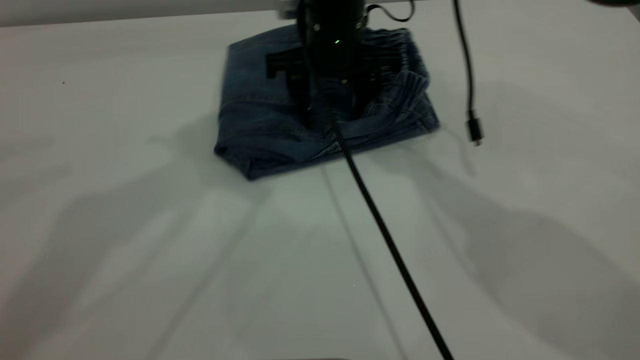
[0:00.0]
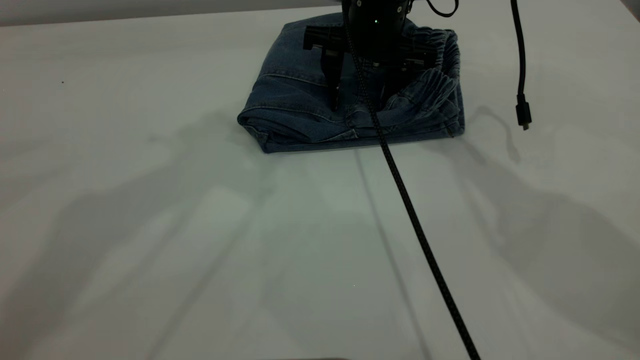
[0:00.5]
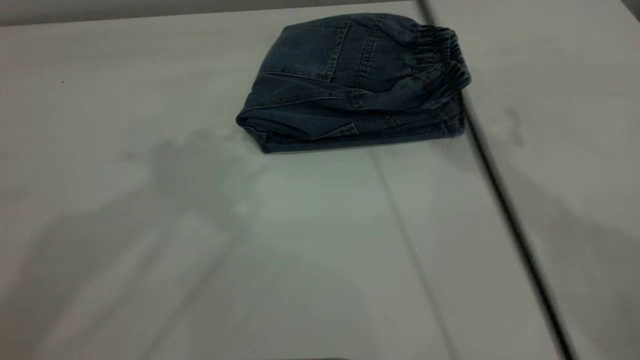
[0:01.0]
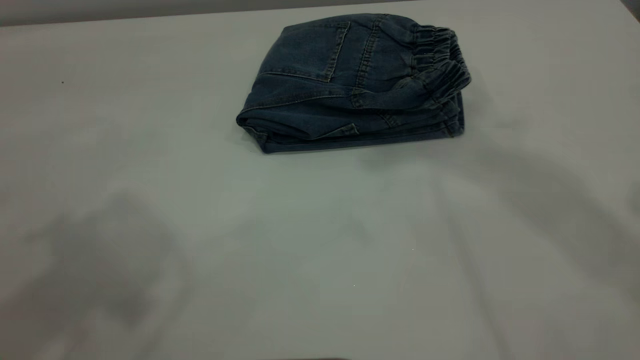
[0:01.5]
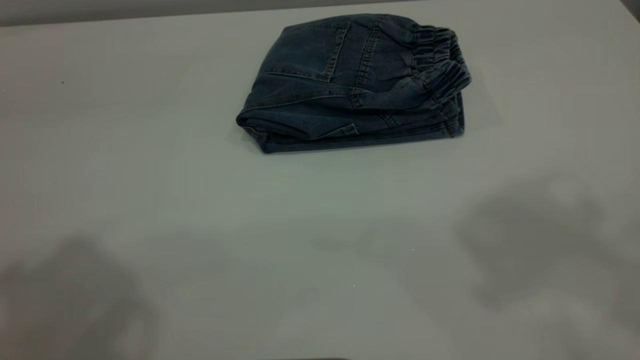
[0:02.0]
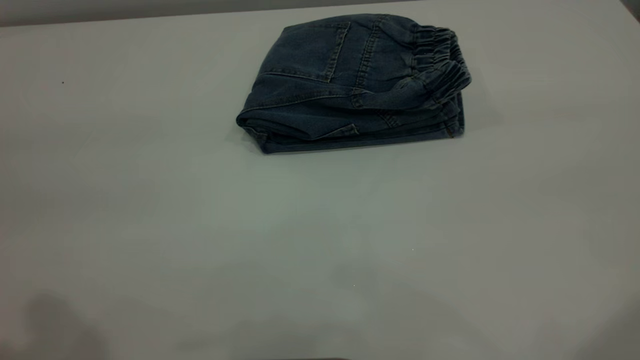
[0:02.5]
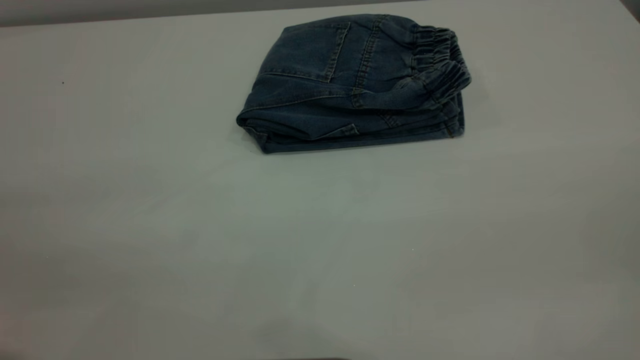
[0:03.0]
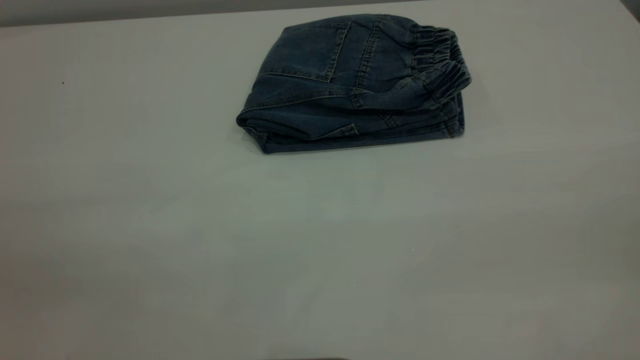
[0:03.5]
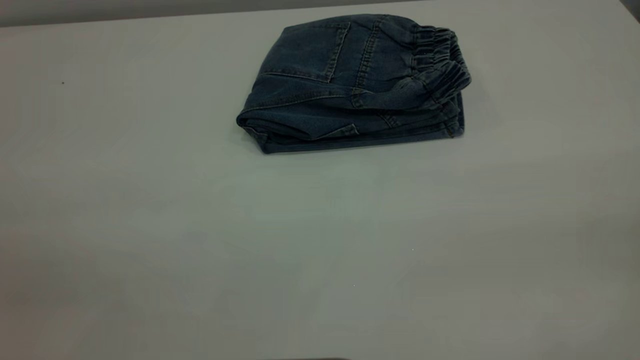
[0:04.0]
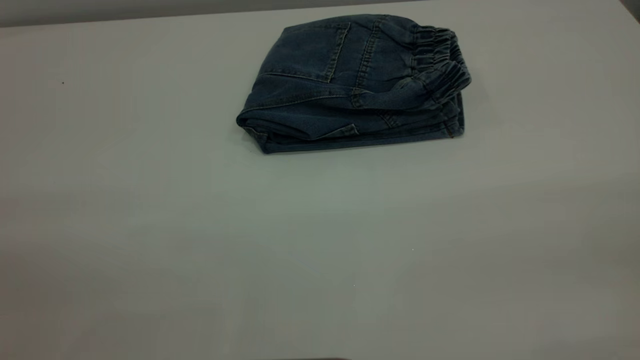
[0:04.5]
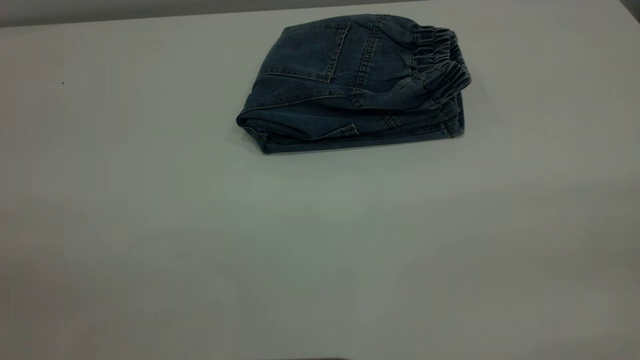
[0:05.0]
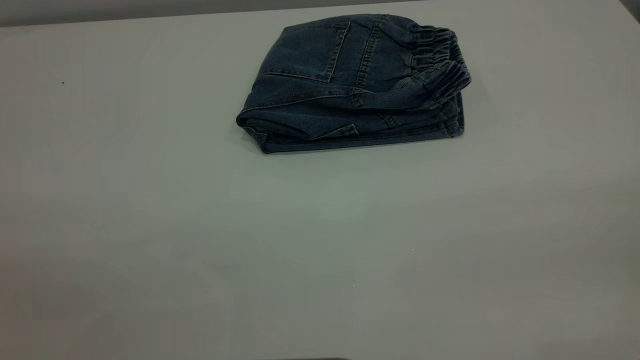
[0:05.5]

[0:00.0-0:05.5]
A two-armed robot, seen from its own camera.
0:00.0 to 0:02.0: The right gripper moves upward and backward, approximately 40 cm. Meanwhile the left gripper travels backward and to the left by about 20 cm.
